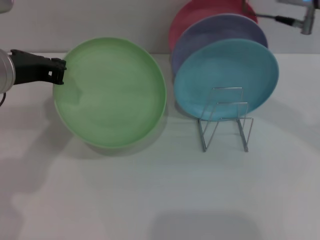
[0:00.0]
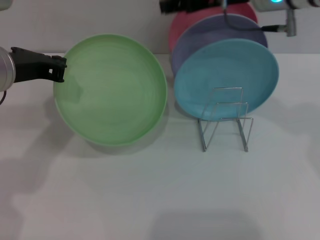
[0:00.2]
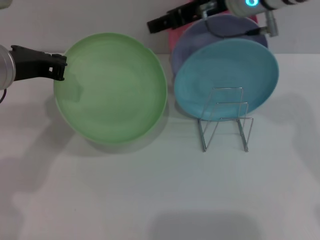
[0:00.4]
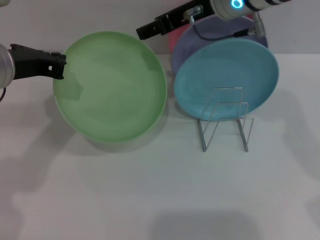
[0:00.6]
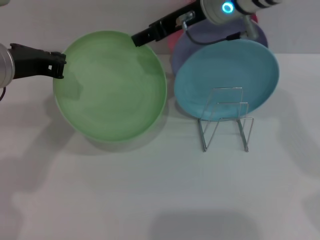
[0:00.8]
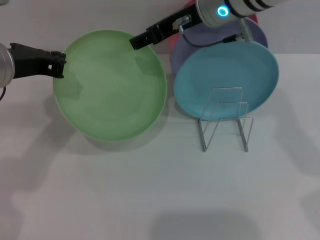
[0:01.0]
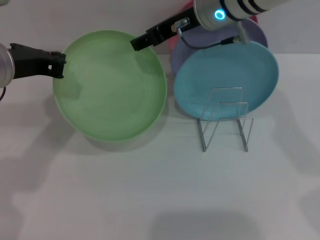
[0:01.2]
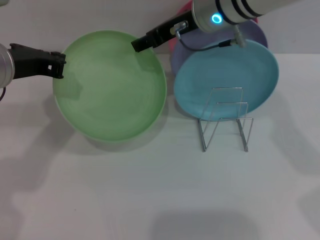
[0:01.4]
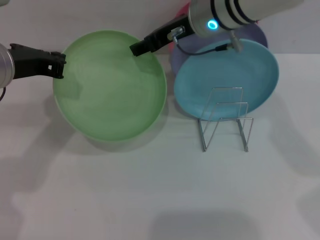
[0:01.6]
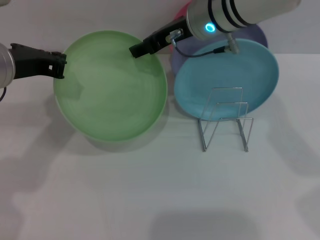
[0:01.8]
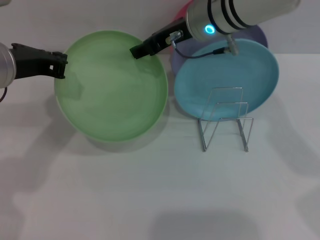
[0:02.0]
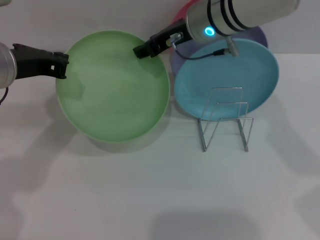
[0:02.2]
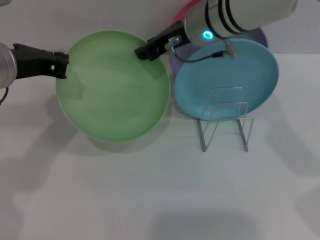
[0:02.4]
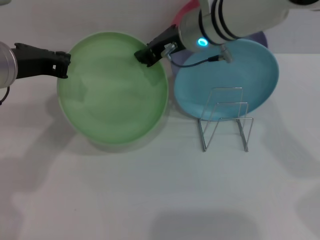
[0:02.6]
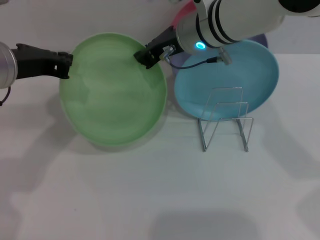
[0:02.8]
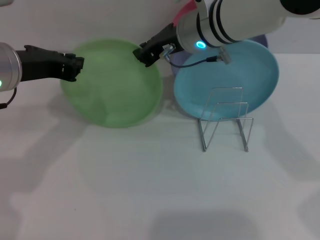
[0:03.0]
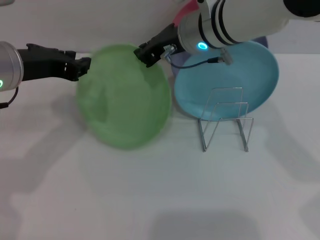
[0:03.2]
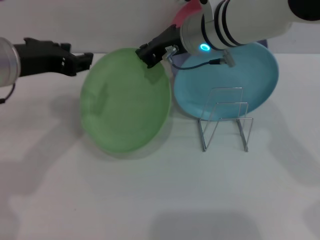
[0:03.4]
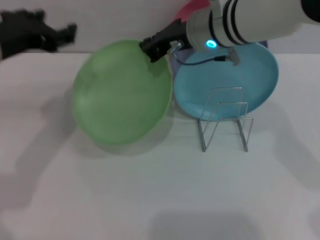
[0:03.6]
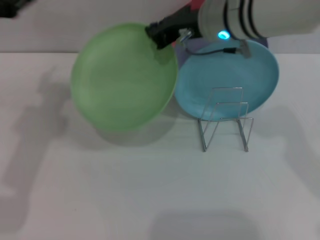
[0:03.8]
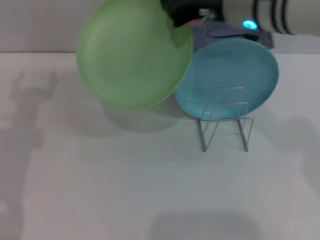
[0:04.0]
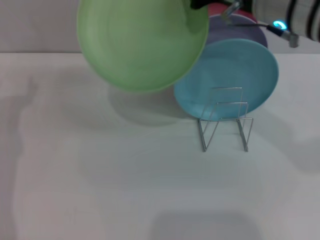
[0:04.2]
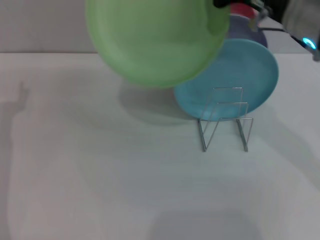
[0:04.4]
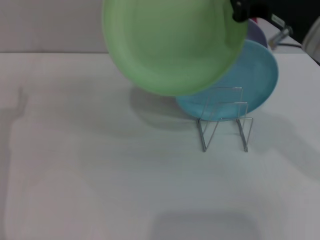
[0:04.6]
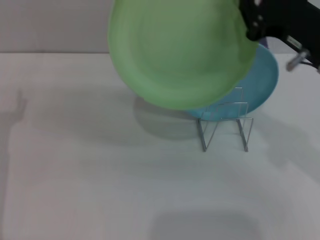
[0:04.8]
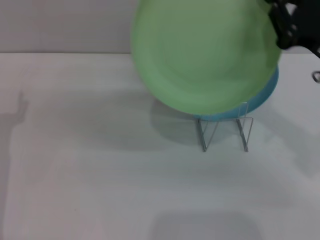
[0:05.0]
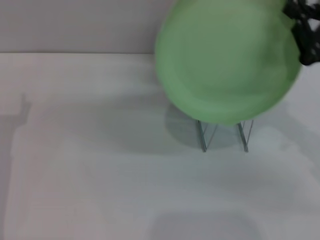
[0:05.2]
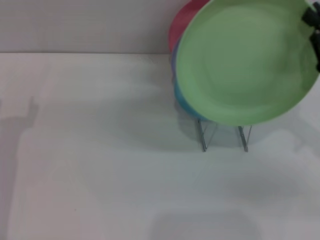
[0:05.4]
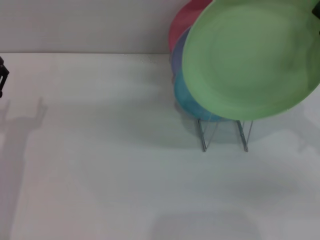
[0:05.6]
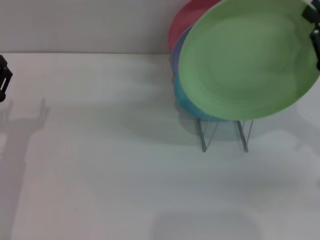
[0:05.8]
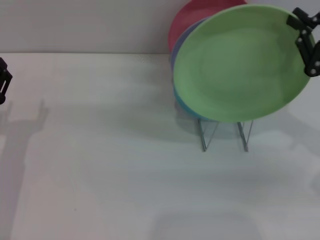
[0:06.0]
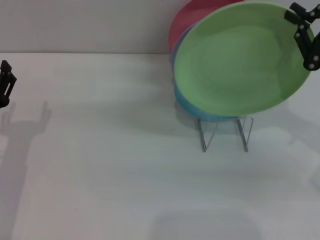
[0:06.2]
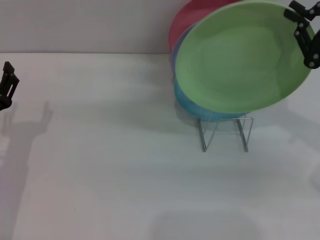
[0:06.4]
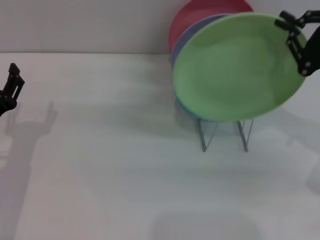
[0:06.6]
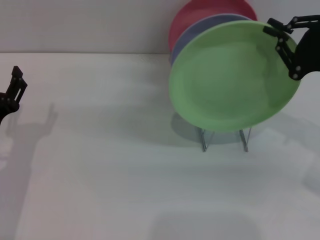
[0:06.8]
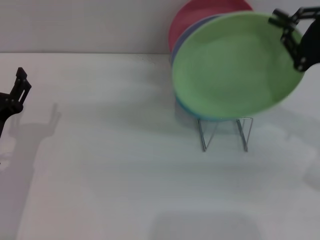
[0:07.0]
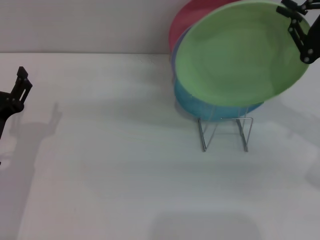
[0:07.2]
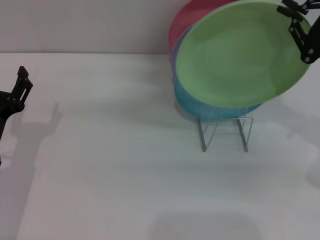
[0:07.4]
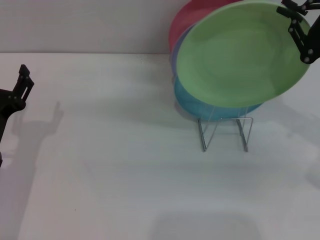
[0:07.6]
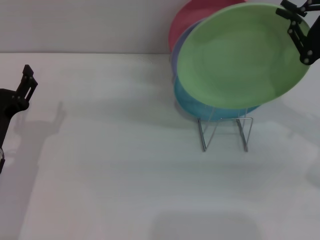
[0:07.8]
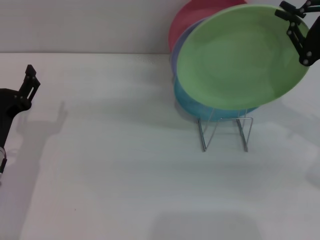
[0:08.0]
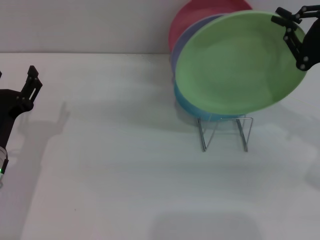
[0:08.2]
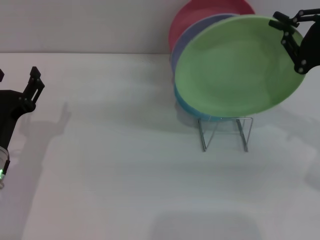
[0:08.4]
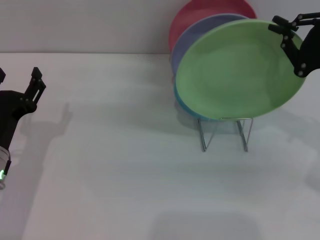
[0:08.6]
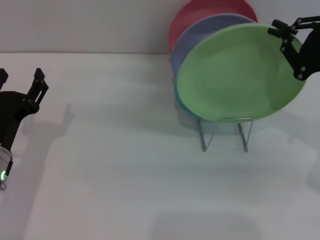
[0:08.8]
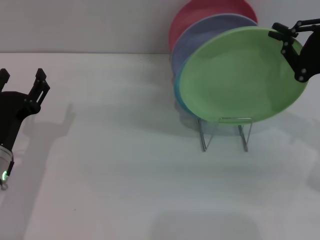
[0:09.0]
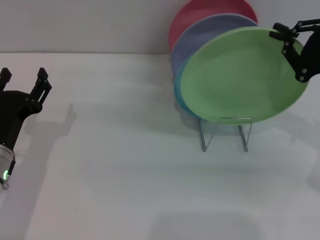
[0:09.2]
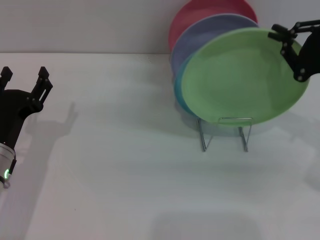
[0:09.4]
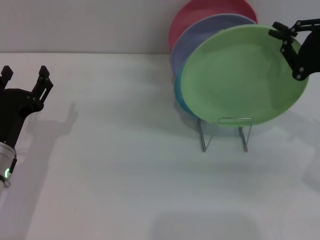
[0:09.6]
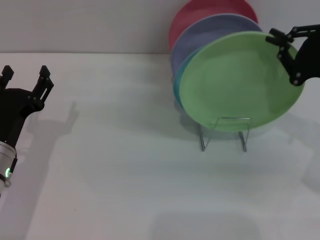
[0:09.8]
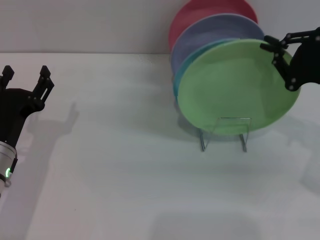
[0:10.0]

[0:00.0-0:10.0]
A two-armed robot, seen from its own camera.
Task of the whole recording: Grip the plate with one hand, pass it to the other, then set it on the shelf.
Step, 0:00.0 to 0:04.4: Pass the plate from the left gripper to the right gripper.
0:00.0 to 0:01.4: The right gripper moves to the left and forward, roughly 10 cm.
0:01.4 to 0:02.8: The right gripper closes.
0:02.8 to 0:04.2: The left gripper travels to the left and downward by roughly 10 cm, and opens up. Meanwhile the right gripper is displaced to the right, backward and upward by some 10 cm.
0:04.2 to 0:05.8: The left gripper moves downward, approximately 10 cm; the right gripper goes approximately 20 cm to the right, downward and backward.
0:07.2 to 0:08.6: Neither gripper changes place.
0:08.6 to 0:10.0: There are only small adjustments of the grippers.

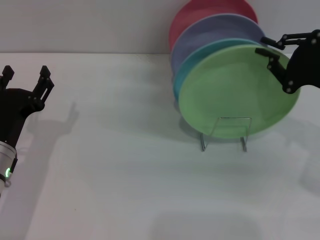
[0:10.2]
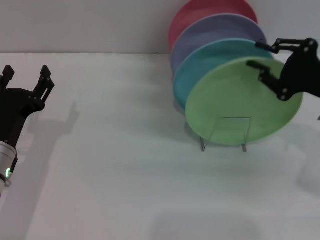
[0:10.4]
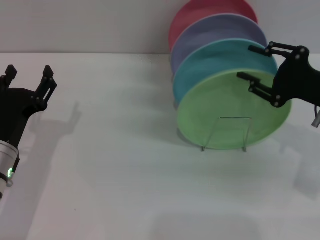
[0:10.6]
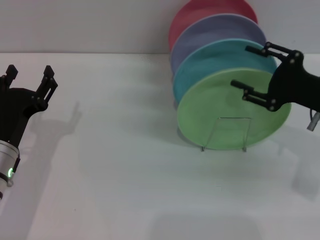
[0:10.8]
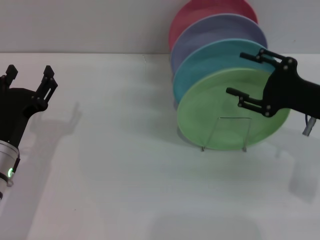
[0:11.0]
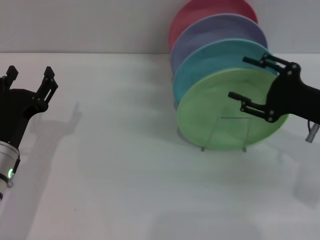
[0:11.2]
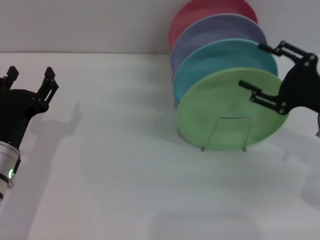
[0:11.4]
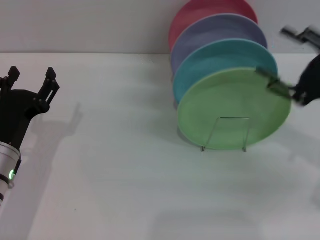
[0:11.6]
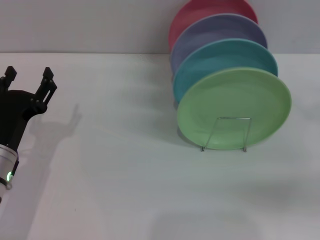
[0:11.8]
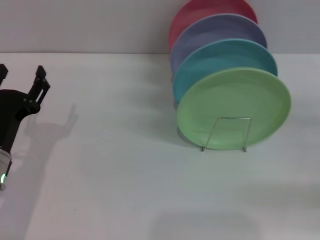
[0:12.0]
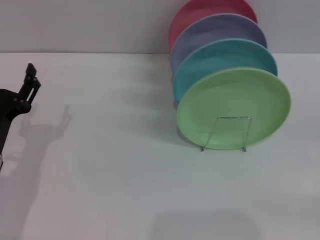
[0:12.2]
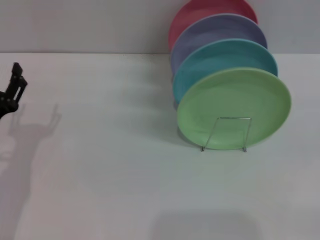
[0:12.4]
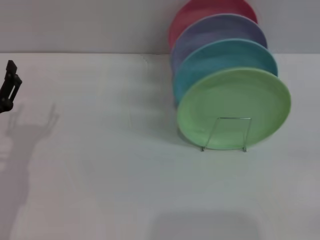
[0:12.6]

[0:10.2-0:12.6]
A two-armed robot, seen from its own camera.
Task of the whole recording: Grip the plate with one hand, pass it to the other, then set it on the shelf.
0:10.2 to 0:11.4: The right gripper opens up.
0:11.4 to 0:12.6: The right gripper shifts roughly 15 cm to the right, backward and downward.

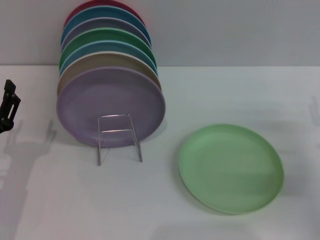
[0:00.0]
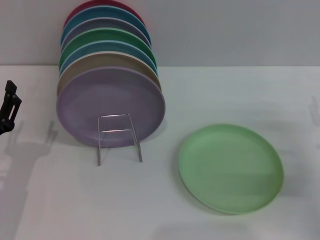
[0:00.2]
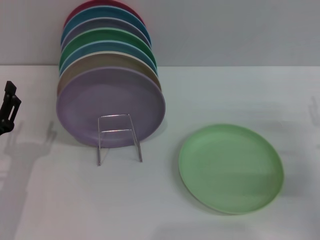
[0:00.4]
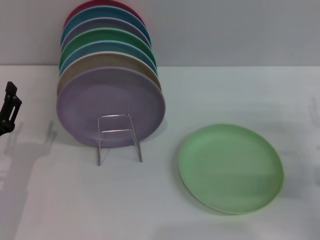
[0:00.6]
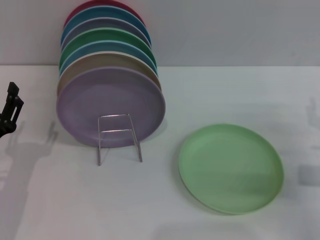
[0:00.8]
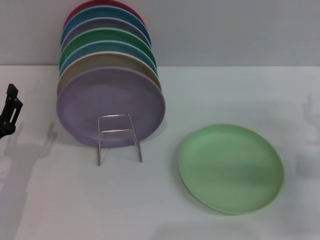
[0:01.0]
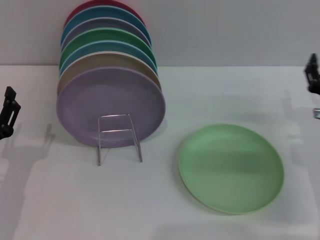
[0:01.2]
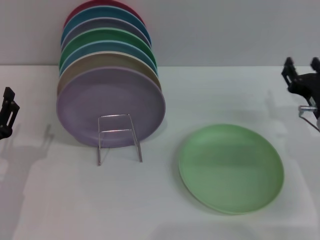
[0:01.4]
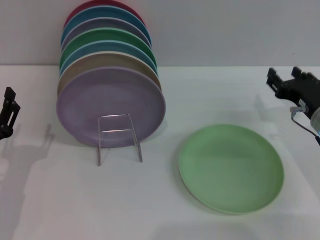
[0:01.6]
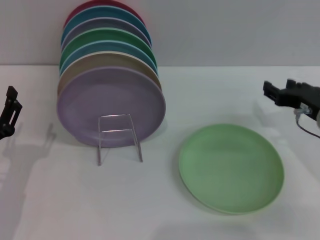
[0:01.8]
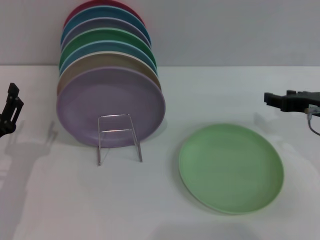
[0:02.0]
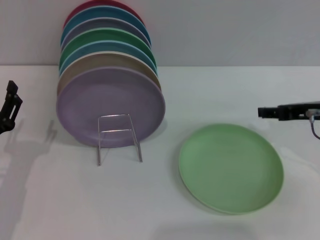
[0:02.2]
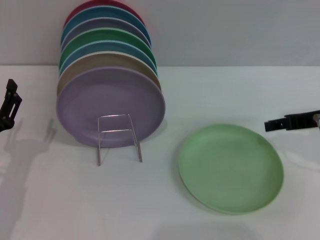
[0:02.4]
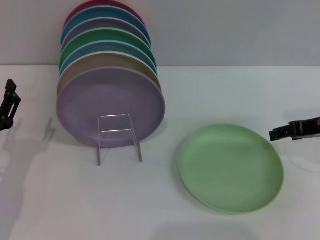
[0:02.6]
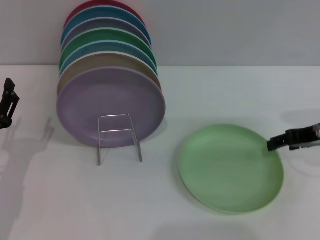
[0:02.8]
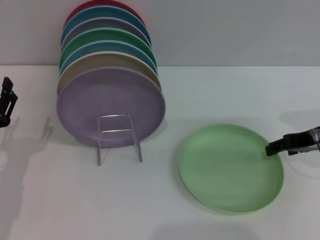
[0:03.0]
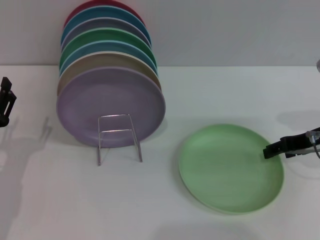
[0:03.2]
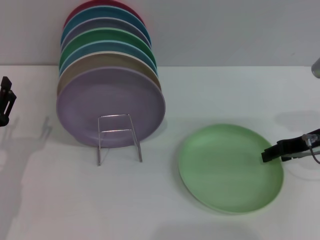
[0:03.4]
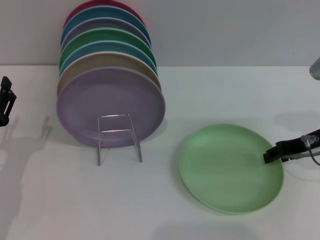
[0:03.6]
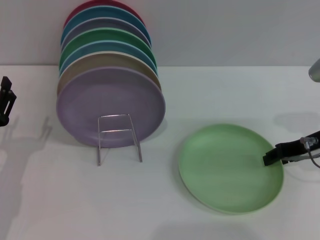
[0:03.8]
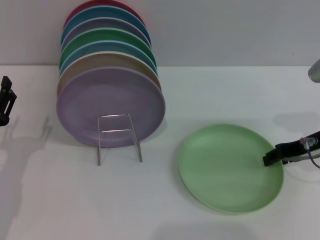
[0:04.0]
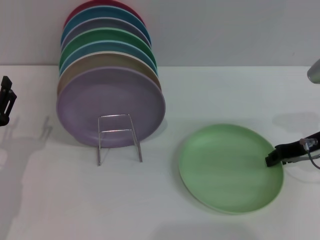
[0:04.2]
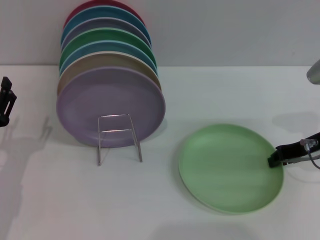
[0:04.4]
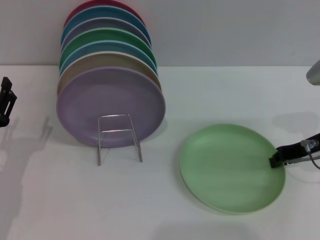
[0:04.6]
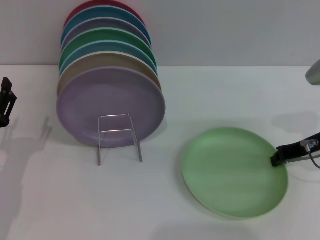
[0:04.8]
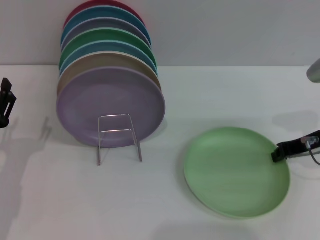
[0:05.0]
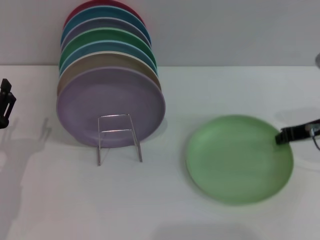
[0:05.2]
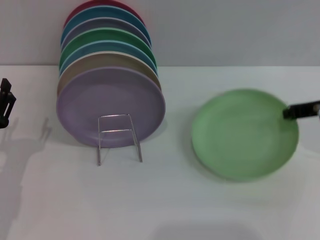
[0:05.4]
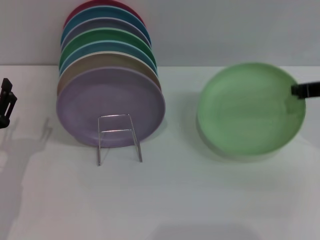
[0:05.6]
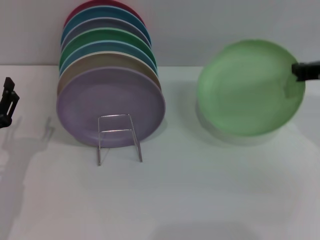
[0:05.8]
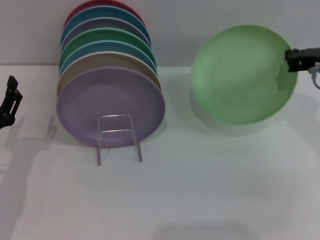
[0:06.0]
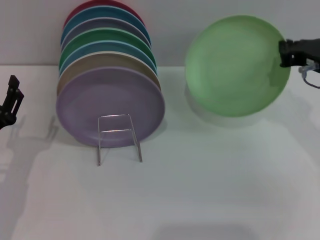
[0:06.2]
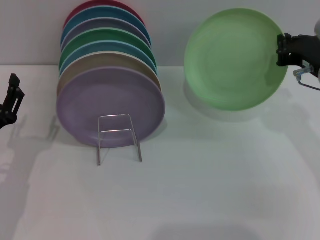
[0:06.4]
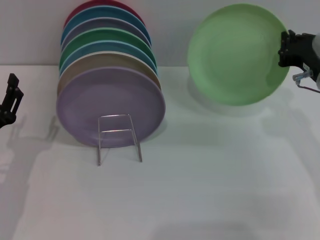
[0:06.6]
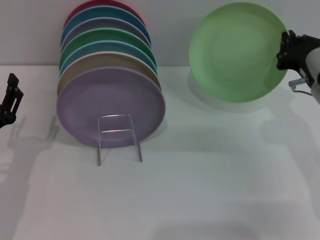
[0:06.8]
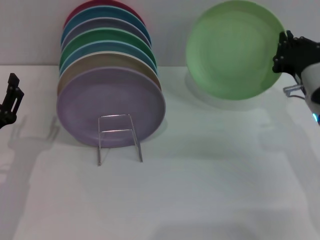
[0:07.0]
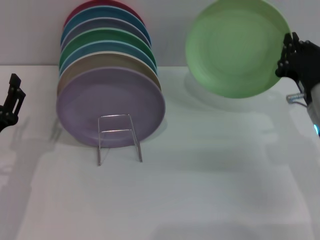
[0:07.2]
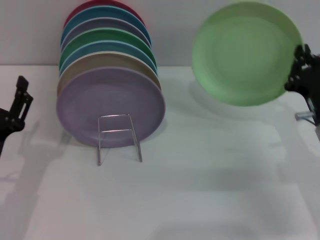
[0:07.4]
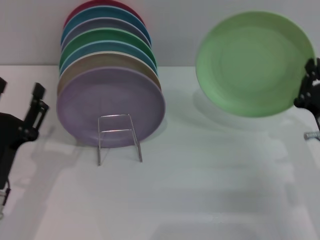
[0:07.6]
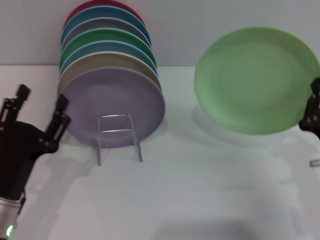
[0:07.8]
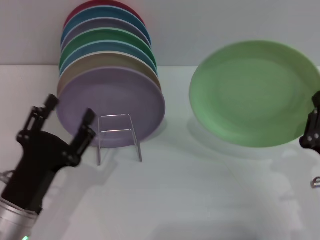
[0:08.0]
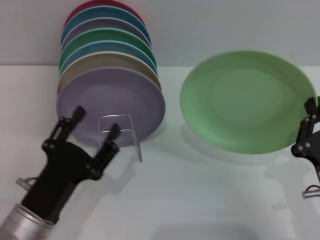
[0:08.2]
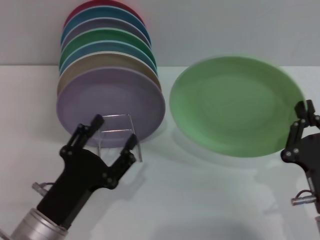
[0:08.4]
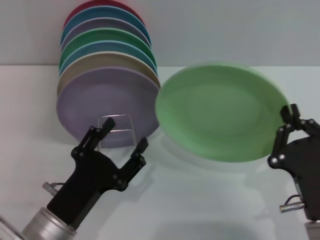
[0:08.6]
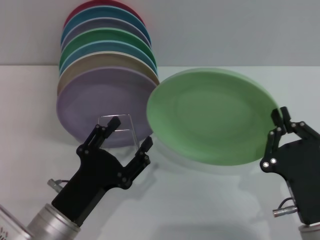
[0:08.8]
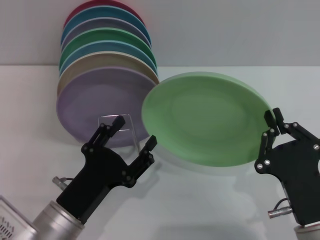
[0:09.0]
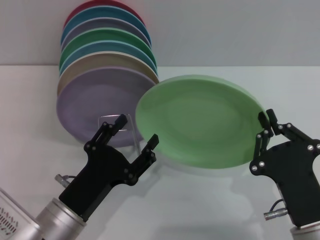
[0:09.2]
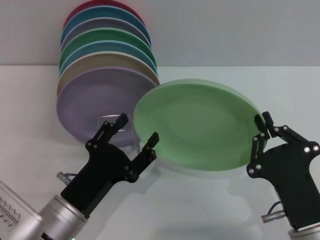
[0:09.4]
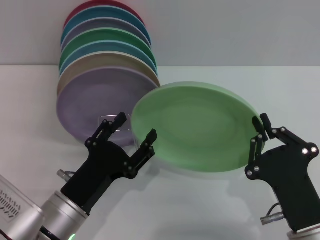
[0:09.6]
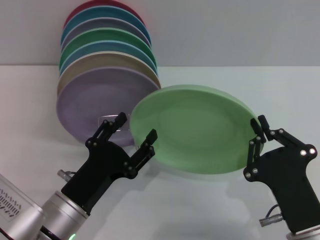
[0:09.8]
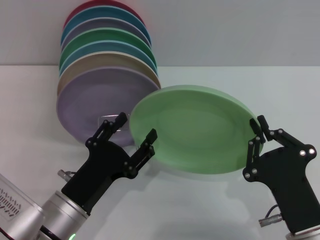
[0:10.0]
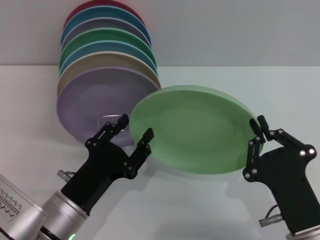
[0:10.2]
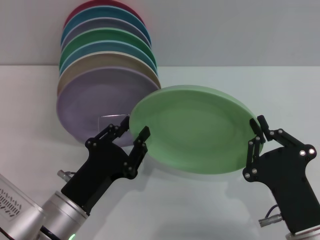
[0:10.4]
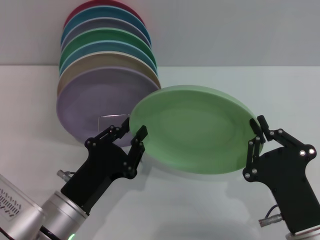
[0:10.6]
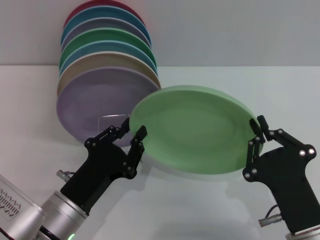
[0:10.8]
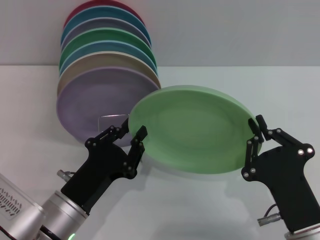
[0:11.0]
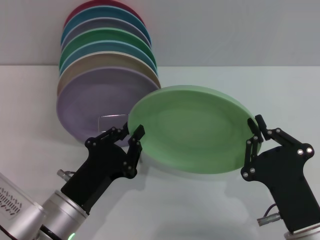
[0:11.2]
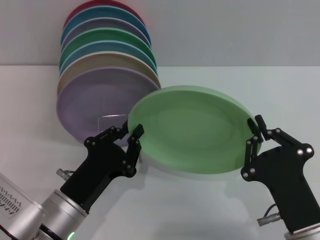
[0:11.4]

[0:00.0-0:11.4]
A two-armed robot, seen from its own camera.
Task of the whole recording: Grip the plate with one hand, pass it to the other, then set it on the shelf.
Step, 0:00.0 to 0:06.4: Pick up the plate with the right gripper.
0:00.0 to 0:01.4: The right gripper goes approximately 5 cm to the left.
0:01.4 to 0:02.8: The right gripper is displaced upward by about 10 cm.
0:02.8 to 0:04.2: The right gripper closes.
0:04.2 to 0:05.6: The right gripper goes roughly 5 cm upward, and closes.
0:05.6 to 0:07.2: The right gripper shifts some 10 cm downward and to the left.
0:07.2 to 0:08.6: The left gripper goes approximately 10 cm to the right and backward; the right gripper goes roughly 15 cm backward.
0:10.0 to 0:11.4: The left gripper closes up.
